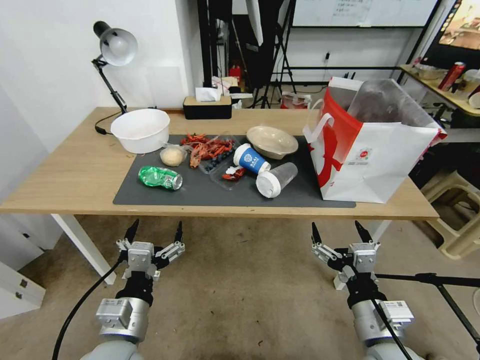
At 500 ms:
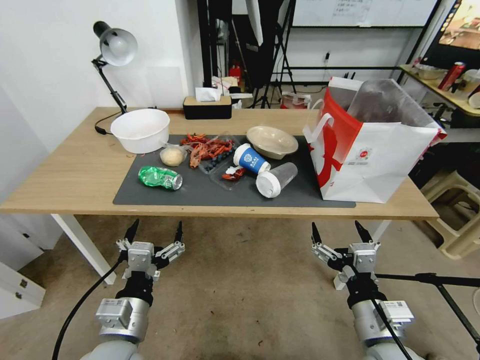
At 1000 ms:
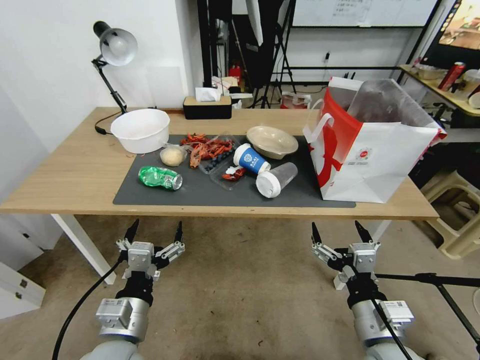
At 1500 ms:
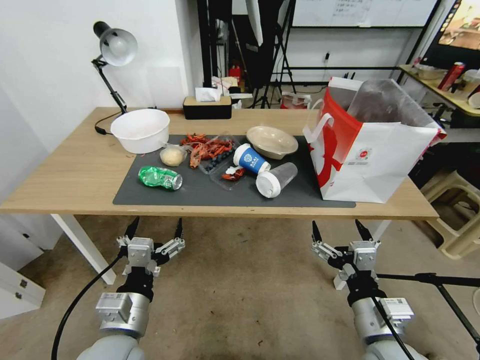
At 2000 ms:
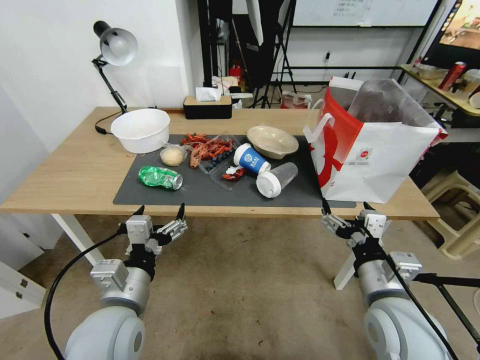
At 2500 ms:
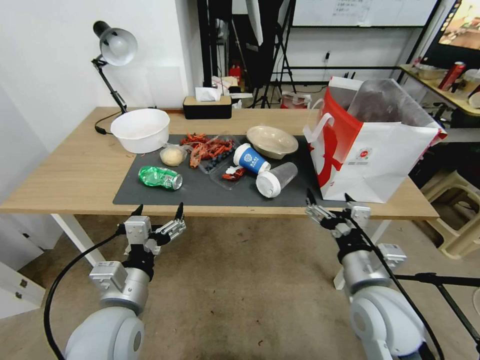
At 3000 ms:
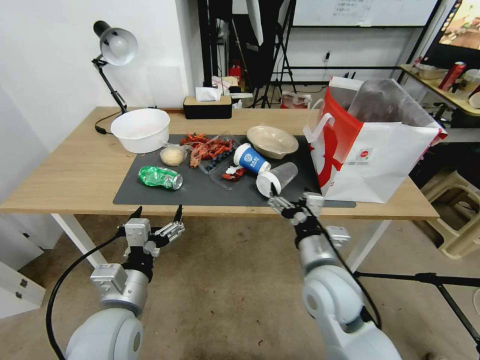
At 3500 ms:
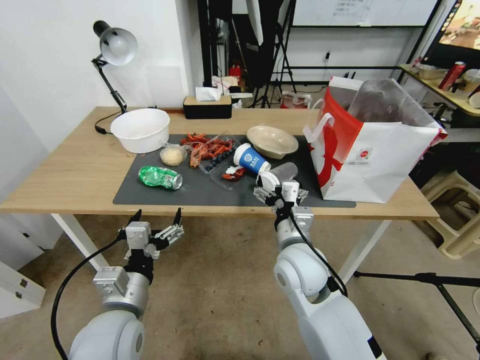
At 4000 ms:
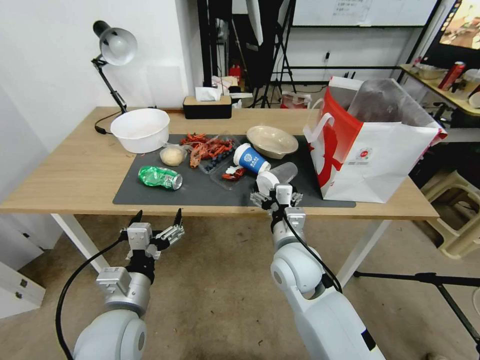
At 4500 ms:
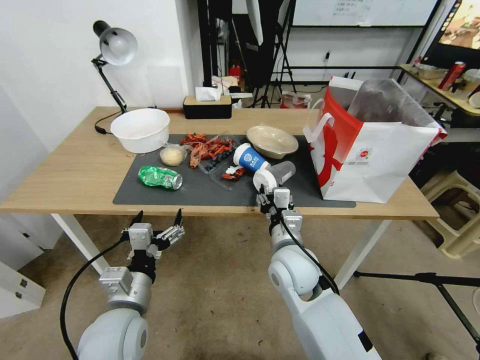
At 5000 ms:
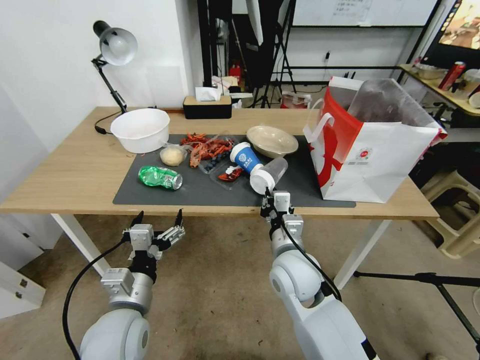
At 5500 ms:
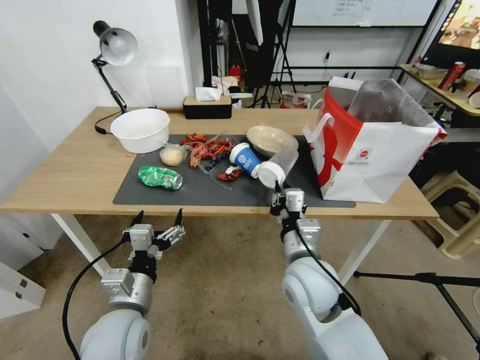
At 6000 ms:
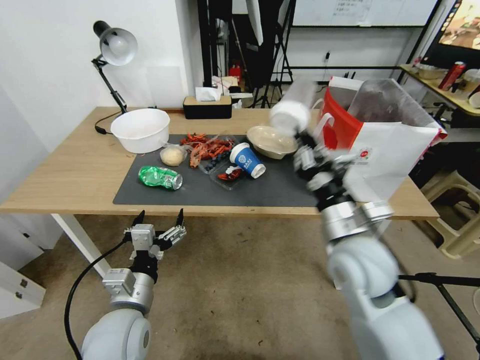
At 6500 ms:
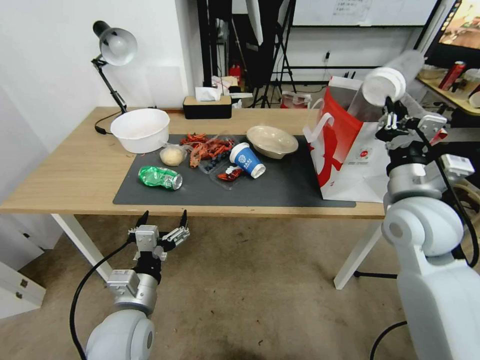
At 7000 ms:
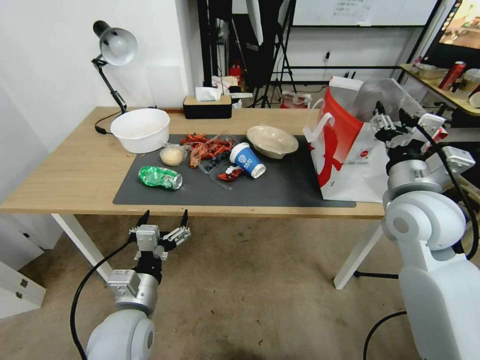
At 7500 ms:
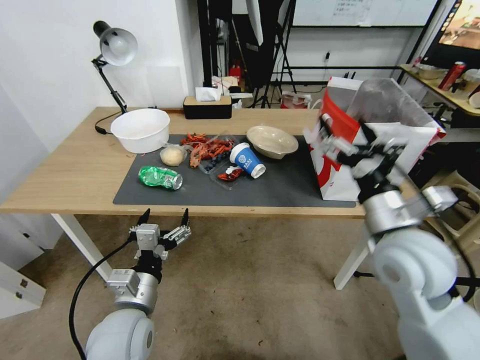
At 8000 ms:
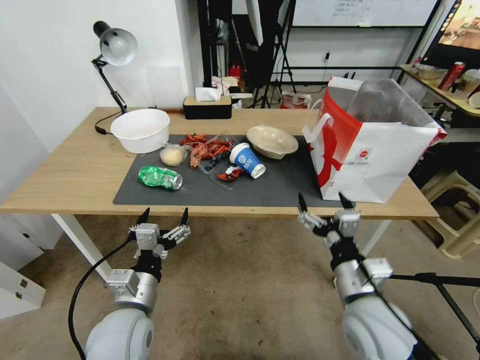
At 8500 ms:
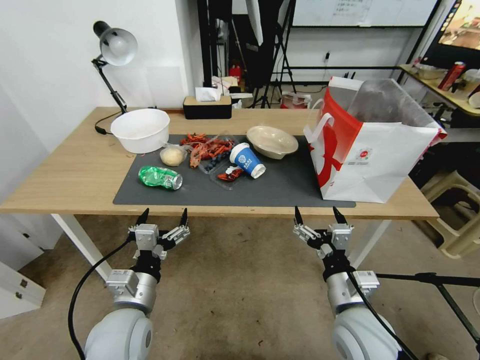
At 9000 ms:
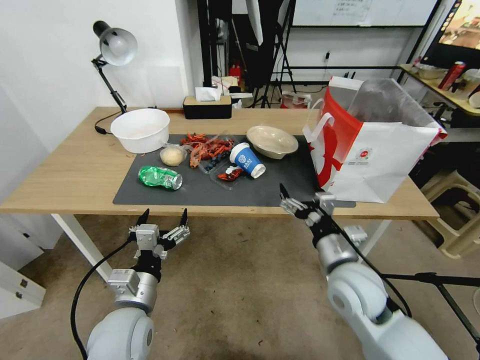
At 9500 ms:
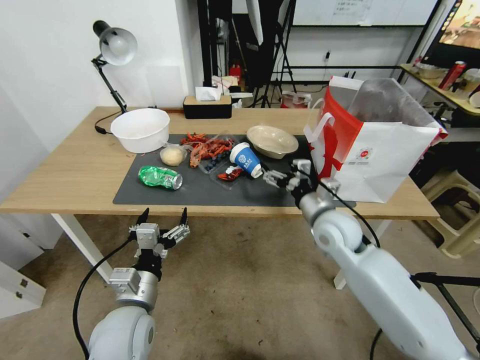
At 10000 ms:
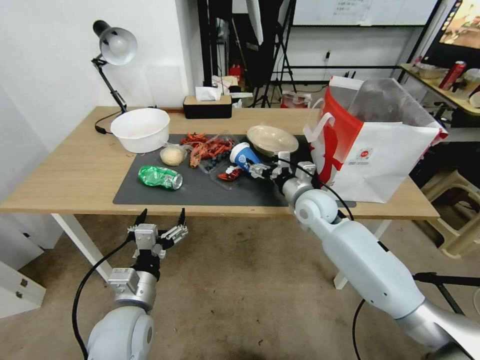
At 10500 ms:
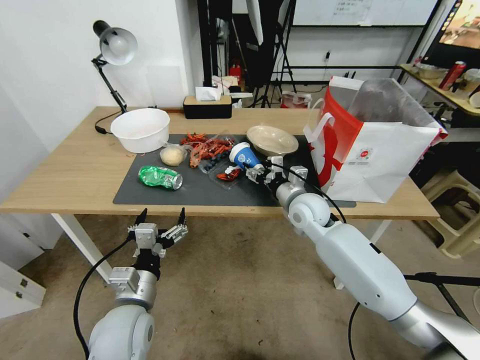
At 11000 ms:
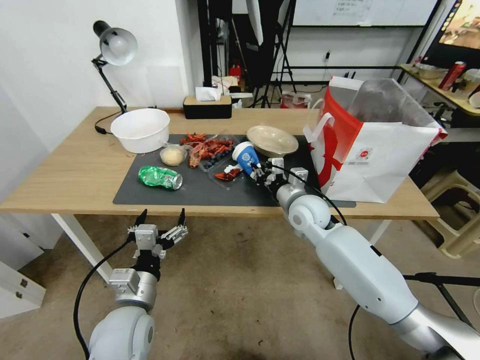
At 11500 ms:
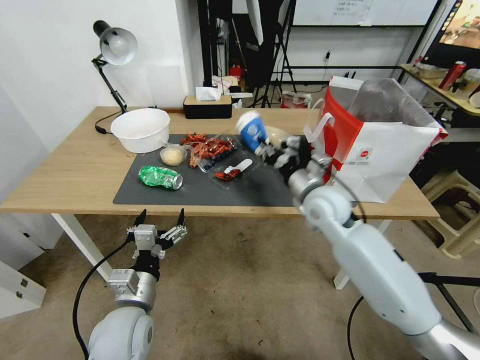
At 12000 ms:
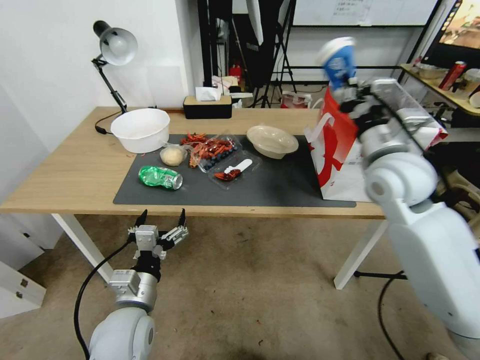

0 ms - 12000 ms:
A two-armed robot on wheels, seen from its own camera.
2000 ms - 4000 ms: The right gripper heads to the left and forward, covering roughly 20 cm.
4000 ms - 6000 ms: The right gripper moves to the right and upward, about 10 cm, and closes up.
6000 ms - 8000 ms: The right gripper travels backward and downward by about 10 cm, and opens up.
8000 ms - 10000 ms: The right gripper moves forward, some 25 cm.
10000 ms - 12000 ms: The right gripper goes about 20 cm upward and to the right, and closes.

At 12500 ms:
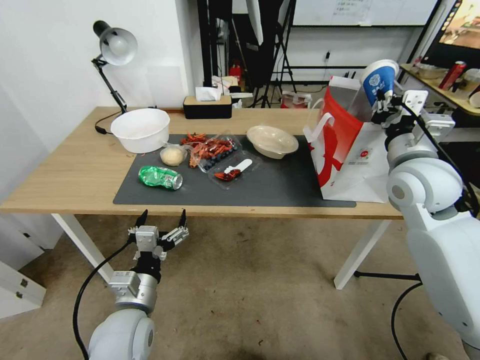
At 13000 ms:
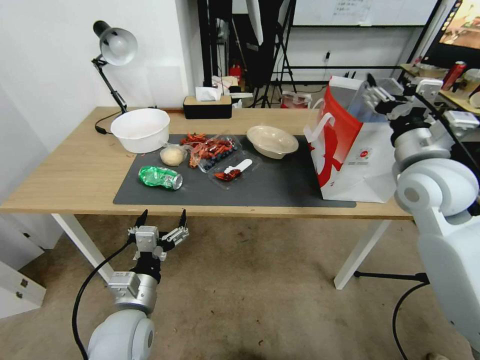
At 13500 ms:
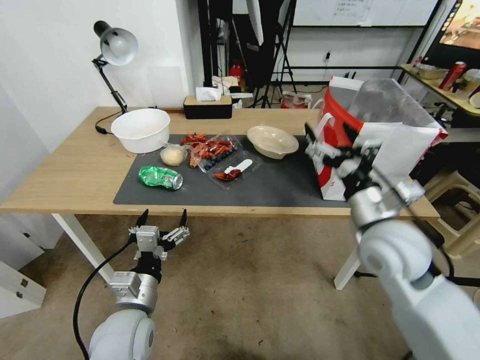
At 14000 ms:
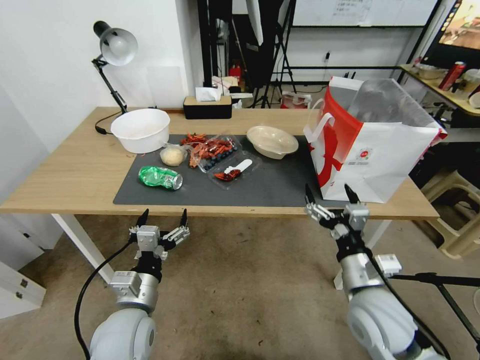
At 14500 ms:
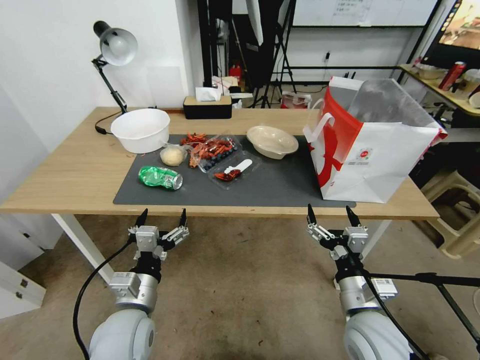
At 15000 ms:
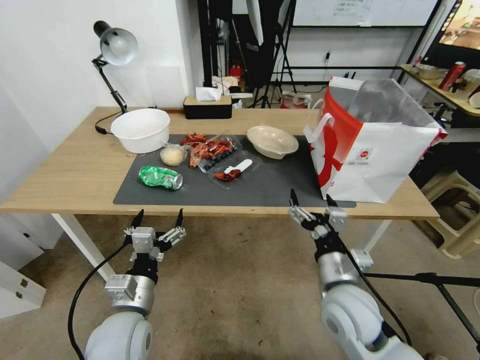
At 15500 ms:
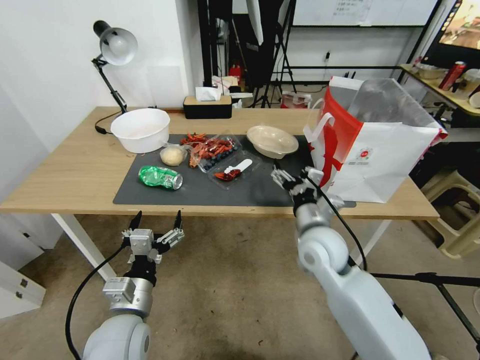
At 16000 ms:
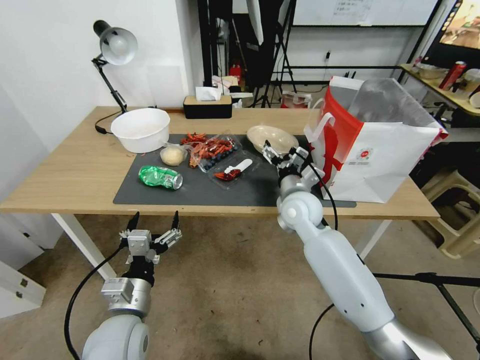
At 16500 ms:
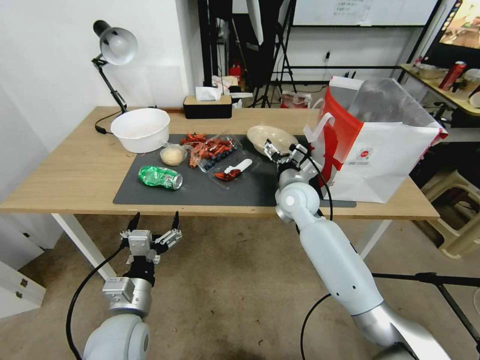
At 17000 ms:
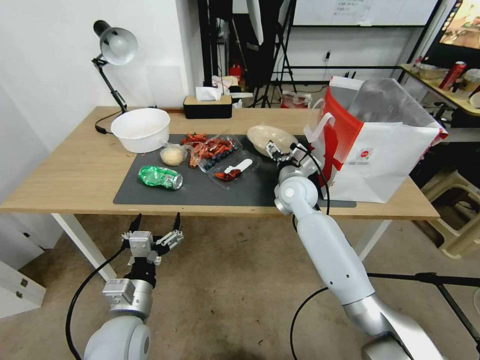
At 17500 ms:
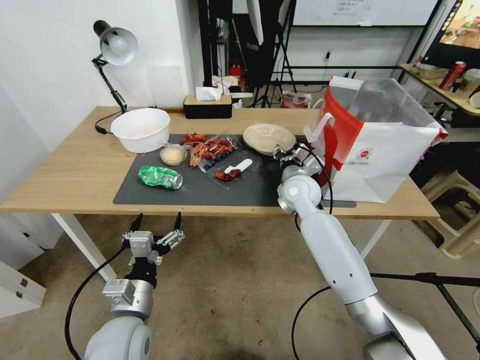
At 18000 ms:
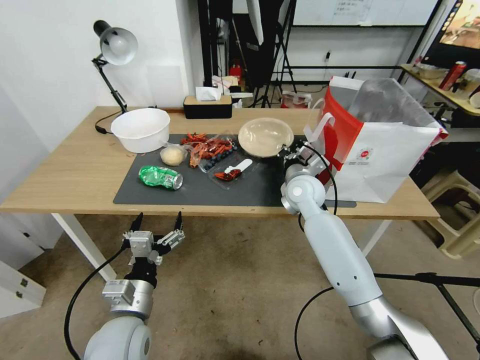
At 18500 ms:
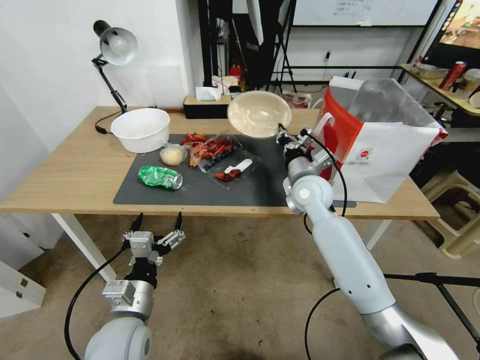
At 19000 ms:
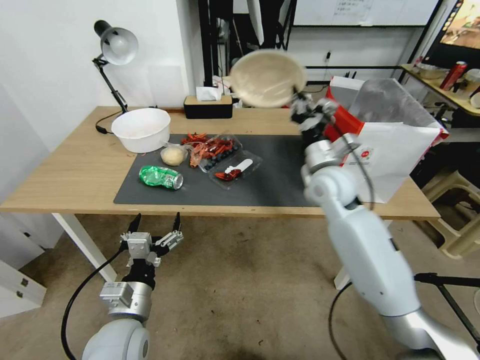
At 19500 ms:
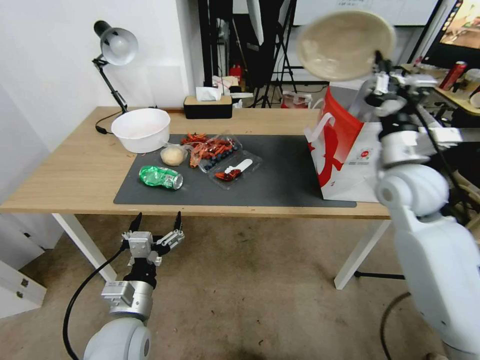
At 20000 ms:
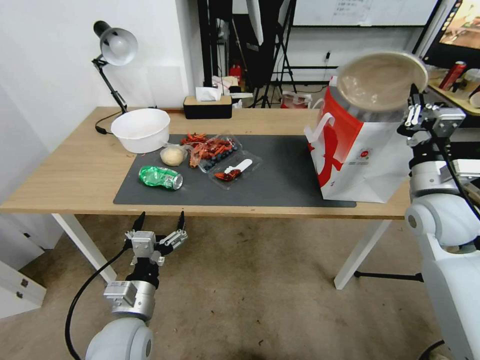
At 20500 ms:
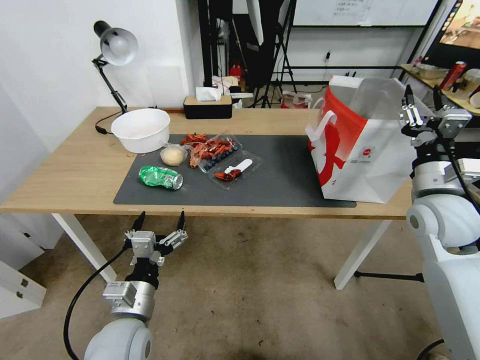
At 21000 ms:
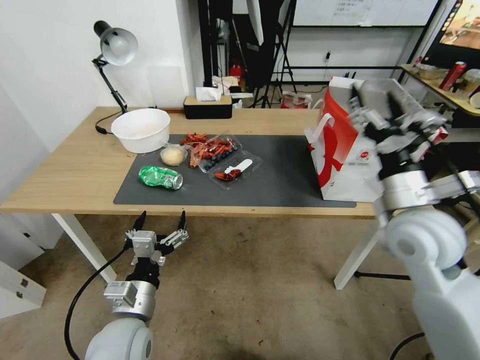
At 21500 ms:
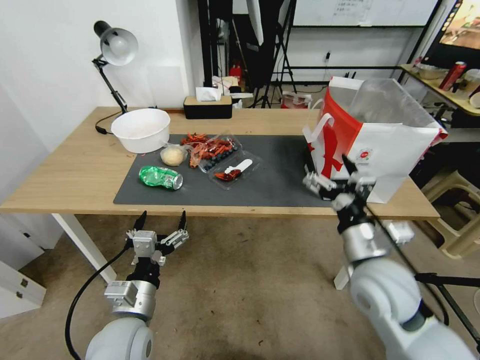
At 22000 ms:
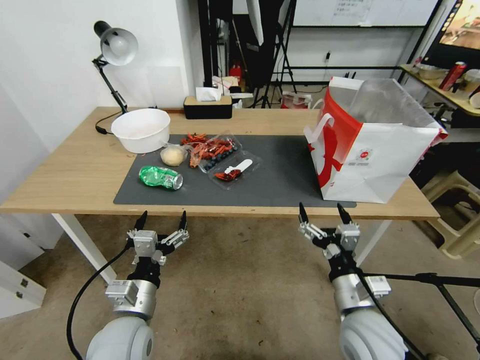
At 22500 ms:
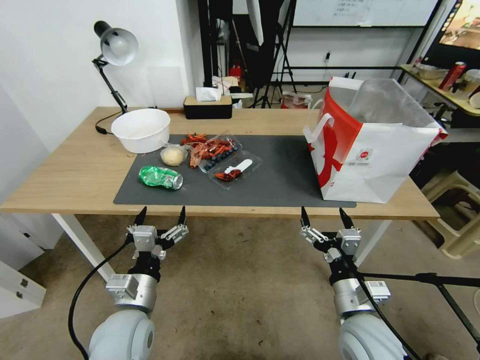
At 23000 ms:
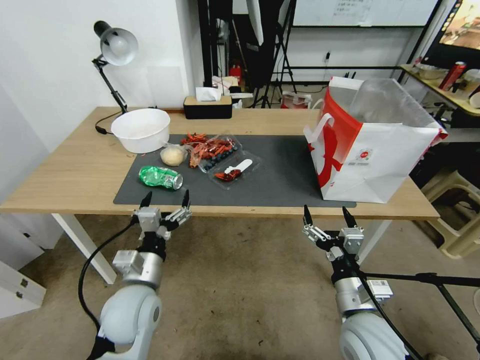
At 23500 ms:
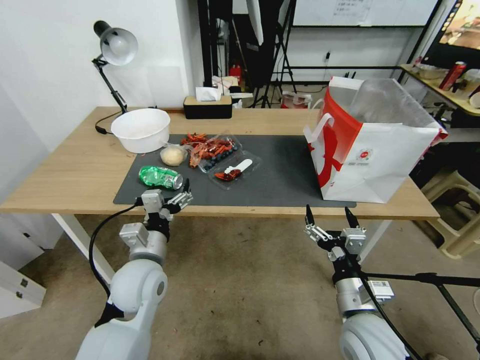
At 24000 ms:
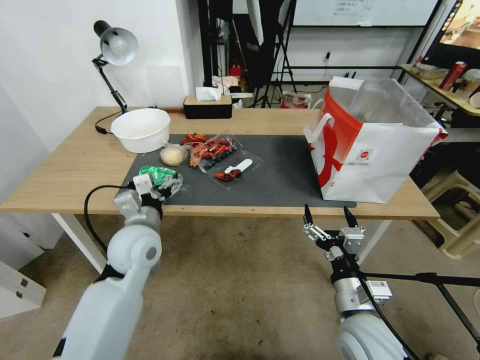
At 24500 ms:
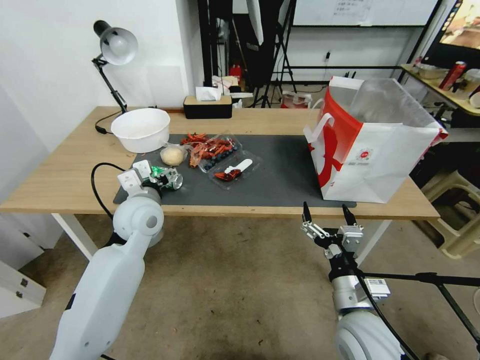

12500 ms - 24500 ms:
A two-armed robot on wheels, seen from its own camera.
12500 ms - 14500 ms: The right gripper is displaced downward and backward by about 30 cm, and opens its fingers.
14500 ms - 16500 ms: The right gripper is displaced forward by about 25 cm.
16500 ms - 18500 ms: The right gripper closes up.
18500 ms - 20500 ms: The right gripper moves to the right and backward, about 20 cm, and opens its fingers.
20500 ms - 22500 ms: The right gripper heads backward, downward and to the left, covering some 25 cm, and opens up.
22500 ms - 24500 ms: The left gripper shifts about 20 cm forward and upward.

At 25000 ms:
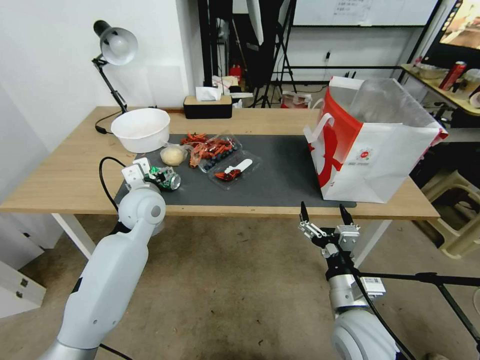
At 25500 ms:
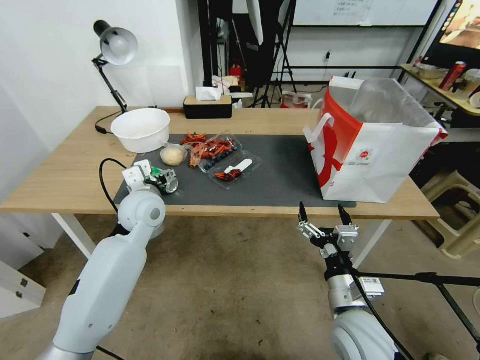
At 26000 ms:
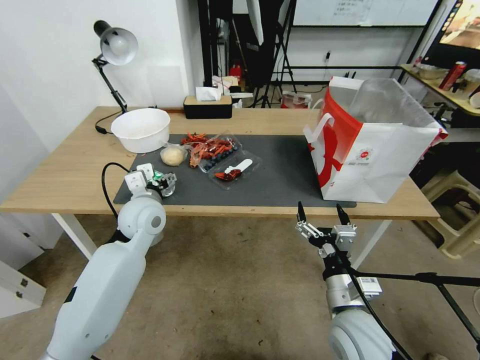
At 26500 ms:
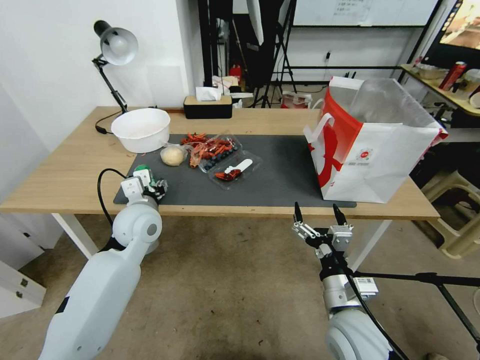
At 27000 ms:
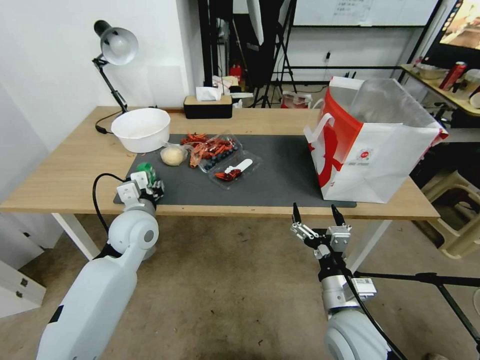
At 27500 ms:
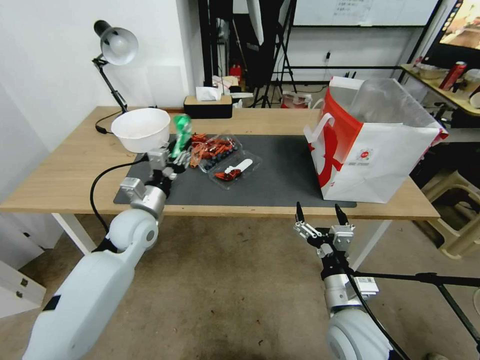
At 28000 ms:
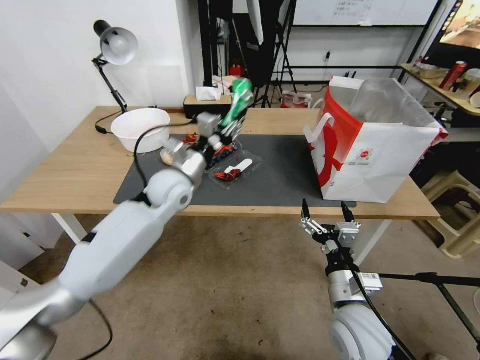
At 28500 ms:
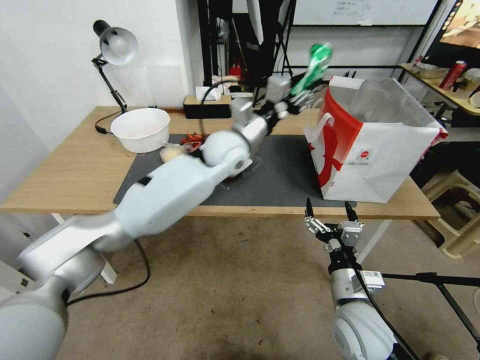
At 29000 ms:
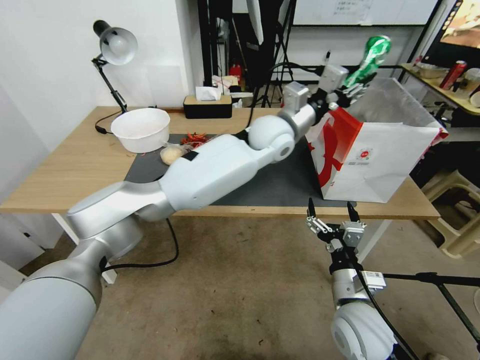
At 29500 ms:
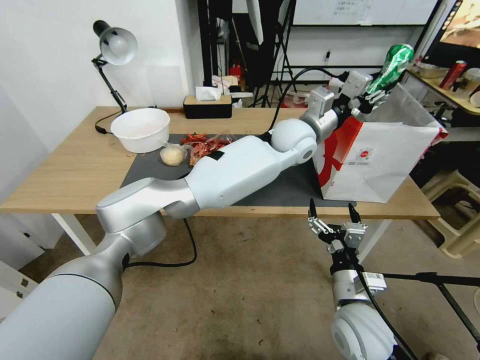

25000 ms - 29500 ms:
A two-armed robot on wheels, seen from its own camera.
25000 ms - 27000 ms: The left gripper closes its fingers.
27000 ms - 29500 ms: The left gripper goes some 40 cm to the right and forward.
